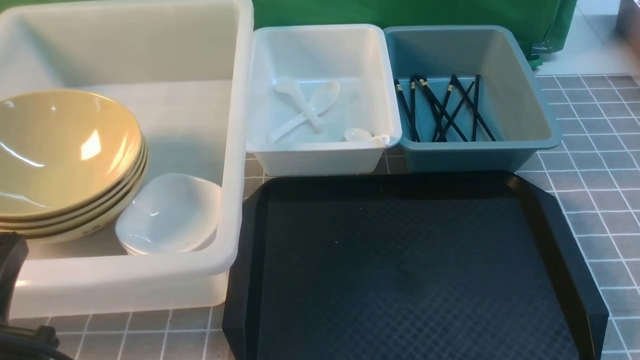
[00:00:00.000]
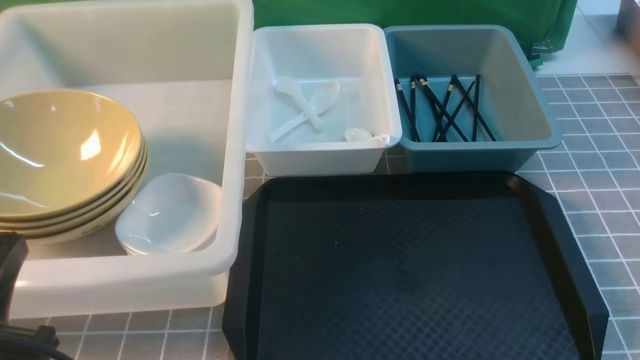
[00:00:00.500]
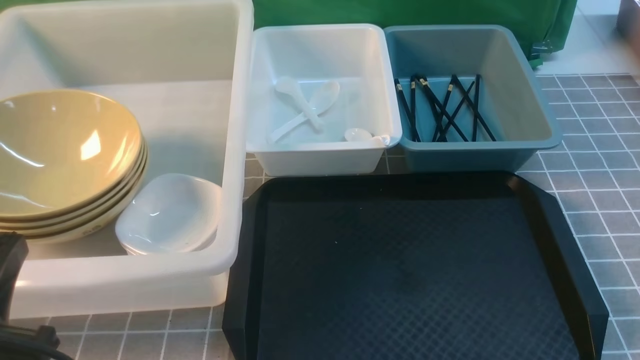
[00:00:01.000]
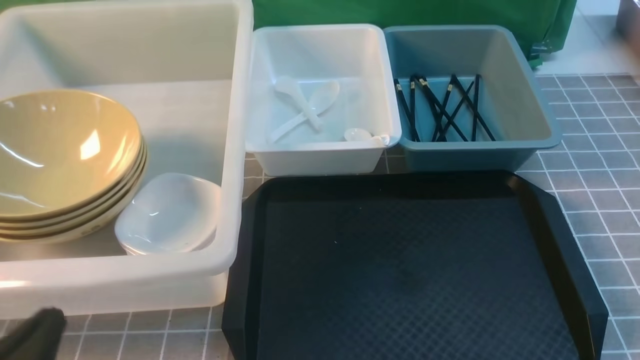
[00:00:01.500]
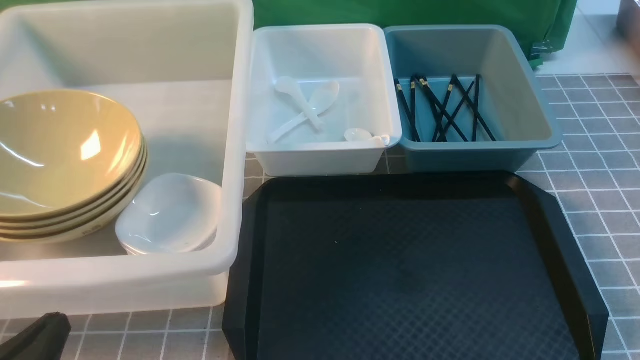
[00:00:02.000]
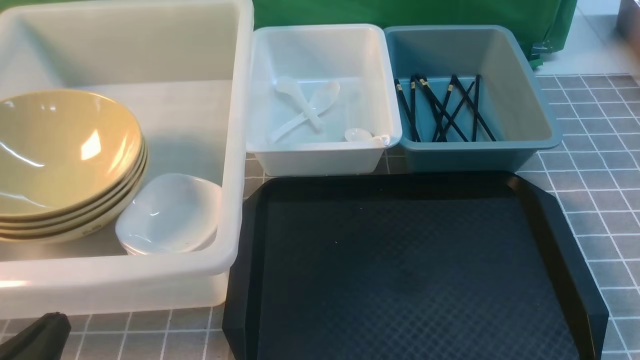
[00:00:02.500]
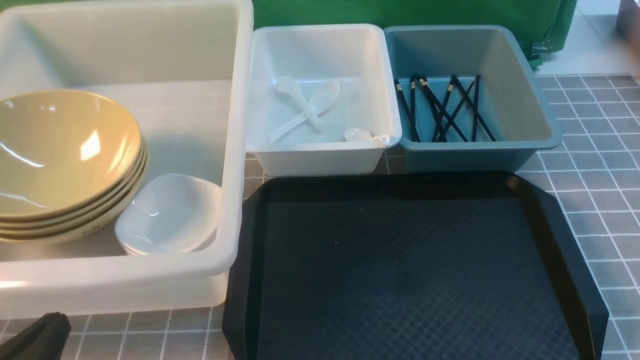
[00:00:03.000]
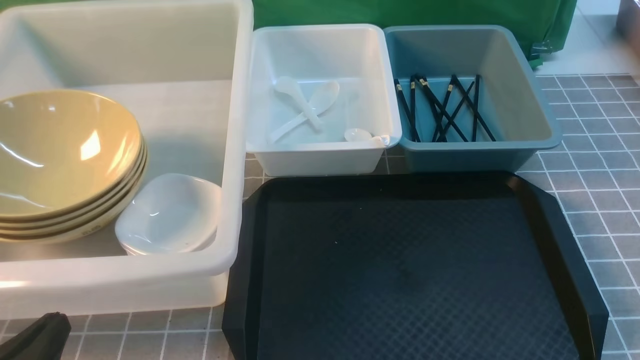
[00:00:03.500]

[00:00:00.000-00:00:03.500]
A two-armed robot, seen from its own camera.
Task of the whole recording: on grey table put chopsticks spoon bowls plates into blue grey white boxes.
00:00:00.000 to 00:00:02.000: The left gripper heads downward, covering approximately 10 cm.
00:00:02.000 to 00:00:03.500: Neither gripper changes place.
